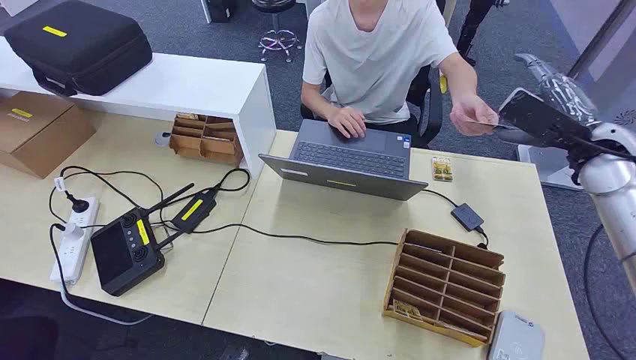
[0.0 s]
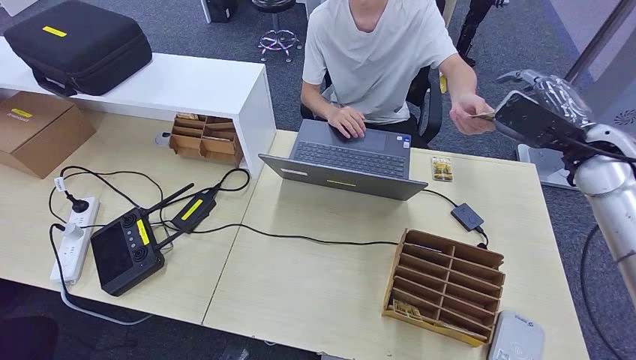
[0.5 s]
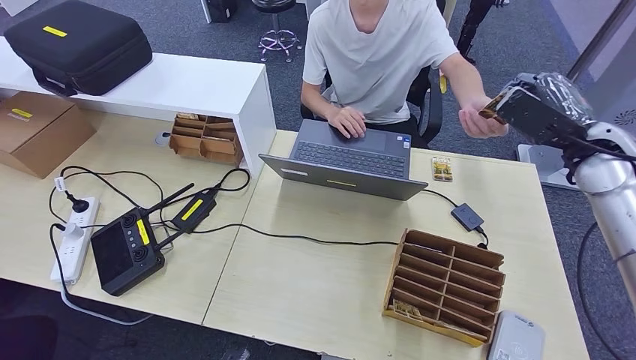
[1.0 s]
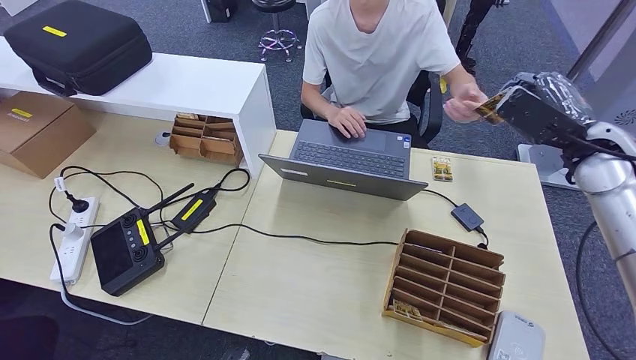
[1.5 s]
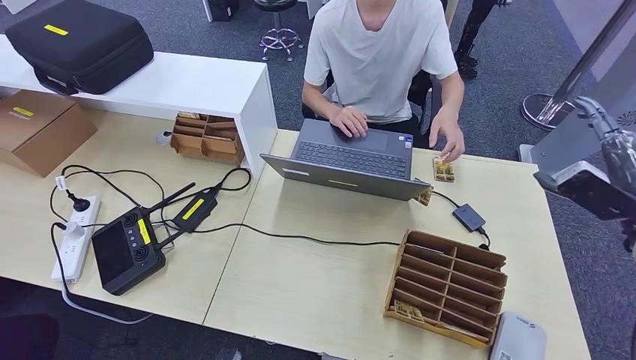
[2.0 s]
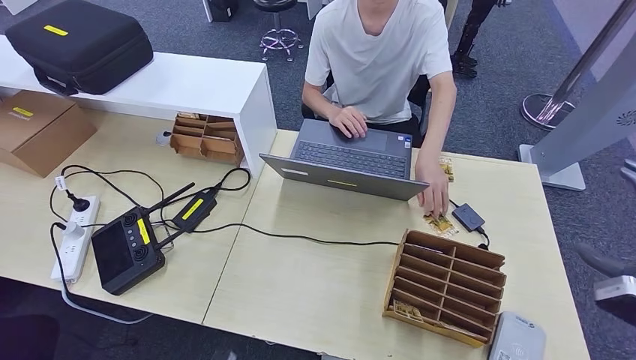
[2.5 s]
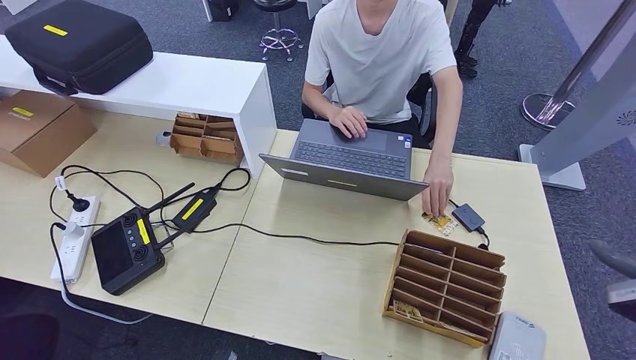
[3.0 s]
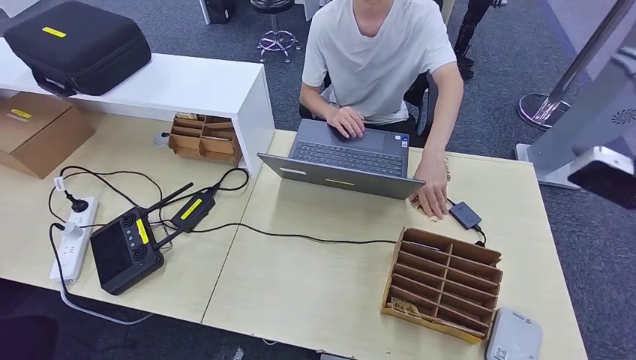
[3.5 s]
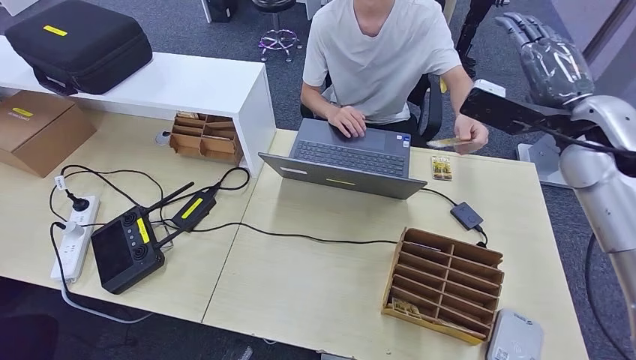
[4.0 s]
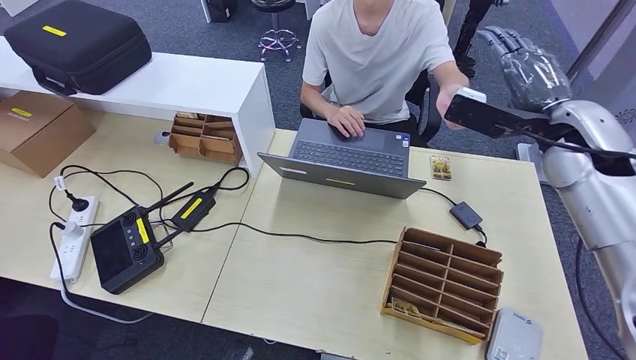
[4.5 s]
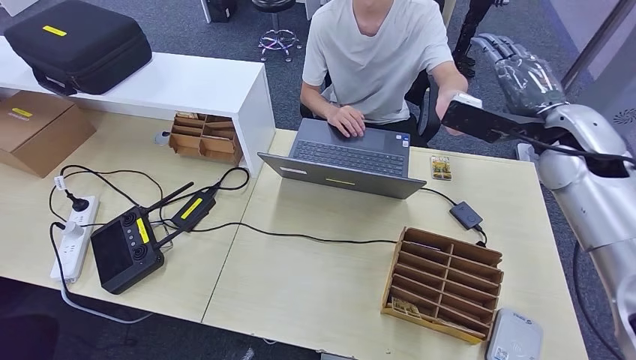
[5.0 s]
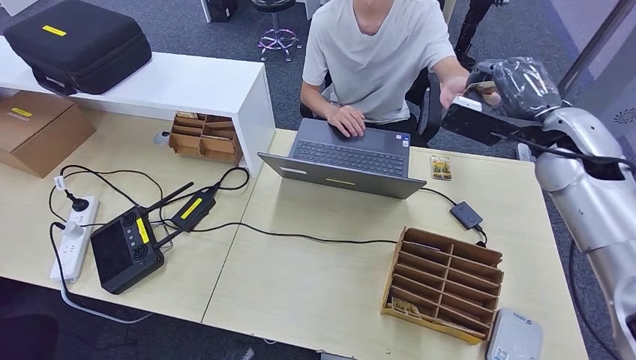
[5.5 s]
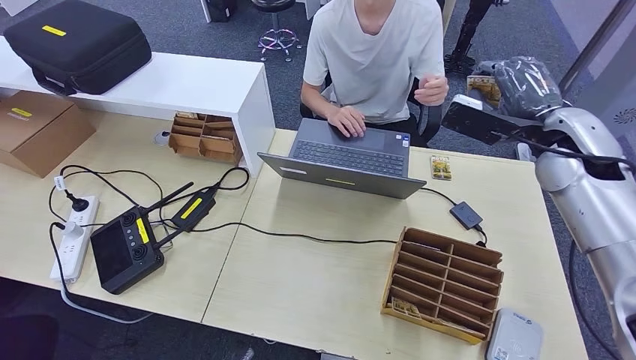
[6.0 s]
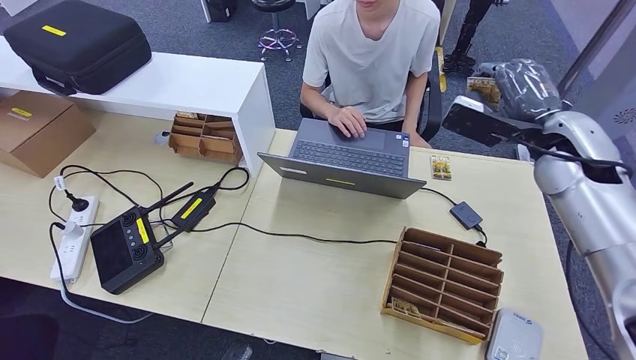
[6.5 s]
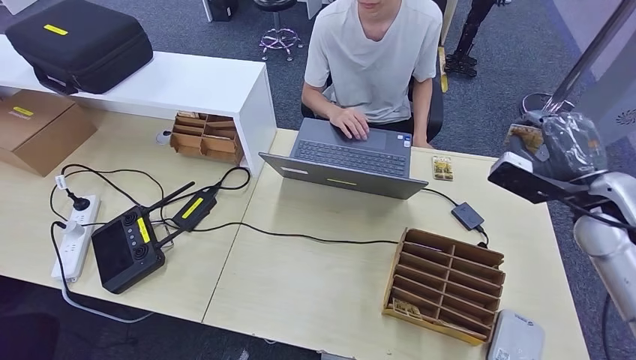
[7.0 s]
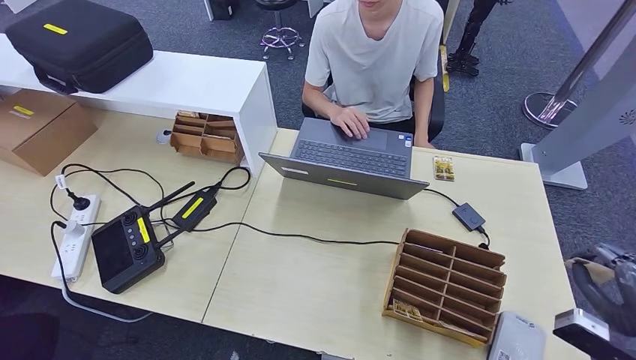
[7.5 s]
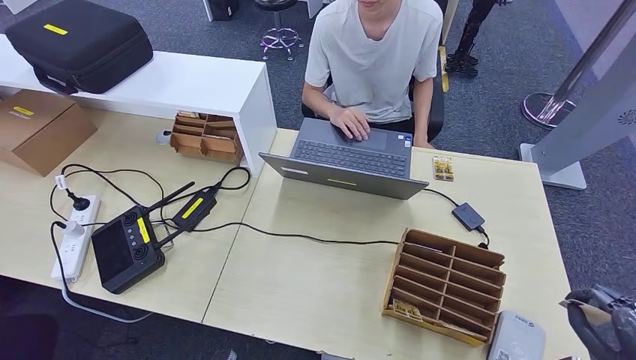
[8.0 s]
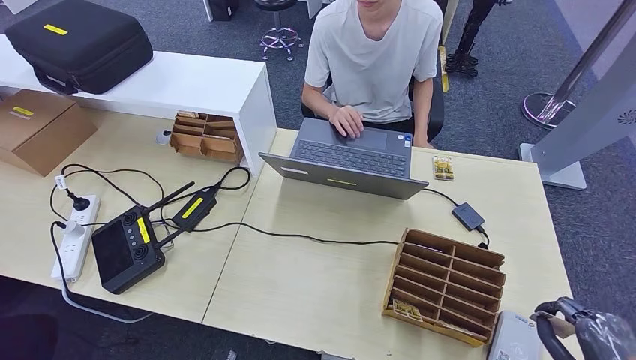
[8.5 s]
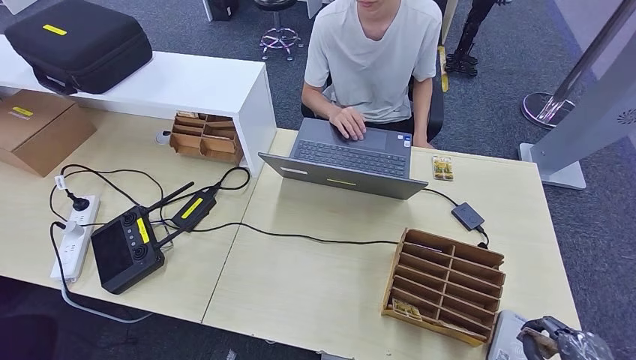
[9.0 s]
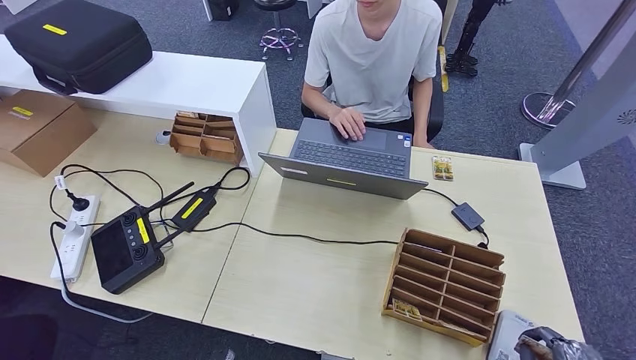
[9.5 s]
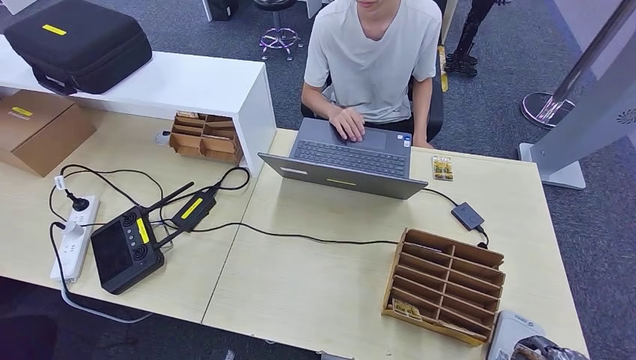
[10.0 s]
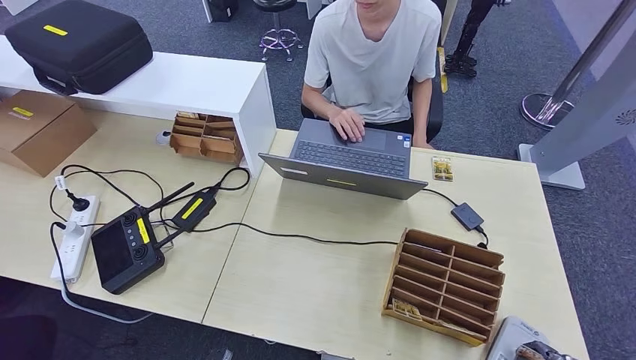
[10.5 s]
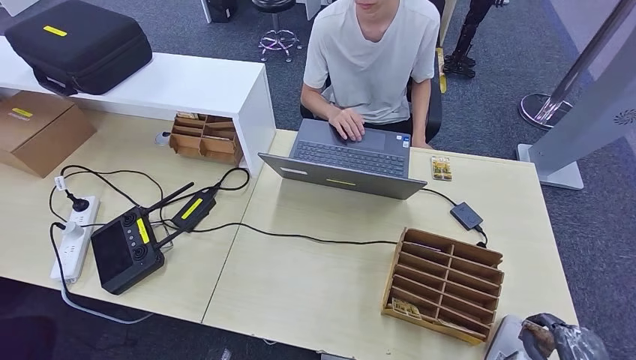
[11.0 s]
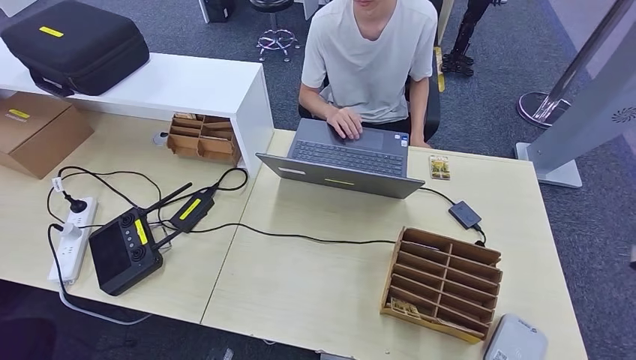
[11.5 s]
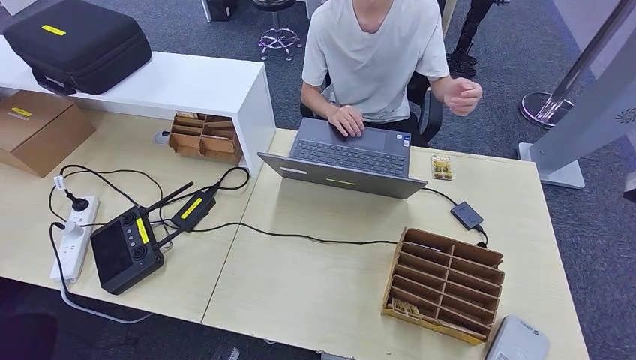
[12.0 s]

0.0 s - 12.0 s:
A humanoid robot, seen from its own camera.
Step, 0.0 s - 0.5 s: Take the ID card from the person's hand.
Step, 1.0 s - 2.5 s: Place the ID card on the card reader.
2.0 s - 4.0 s: The right hand moves to the left and upward, roughly 15 cm, and travels backward and back again, about 15 cm each way.
4.0 s - 6.0 s: The hands move only a little.
6.0 s - 8.0 s: The right hand heads backward, downward and to the right, covering approximately 40 cm.
8.0 s - 10.0 s: The right hand is displaced downward and backward by approximately 10 cm.
10.0 s - 12.0 s: The right hand shifts about 40 cm upward and forward.

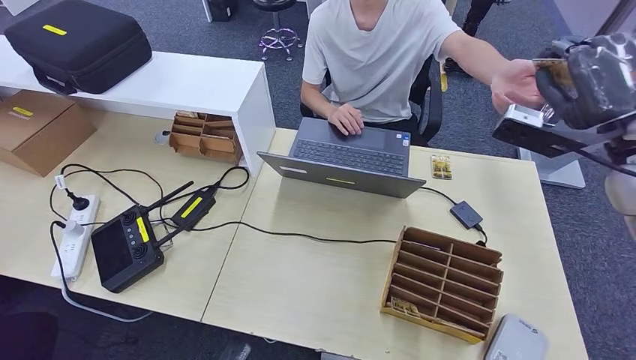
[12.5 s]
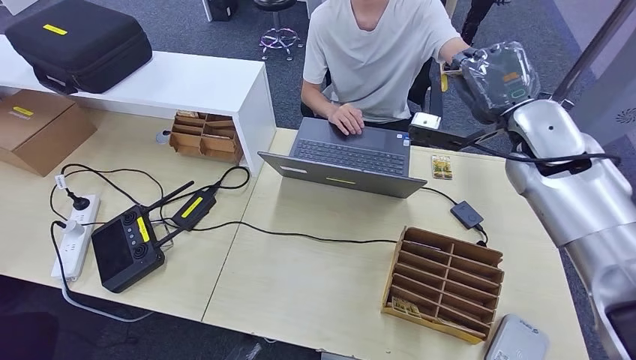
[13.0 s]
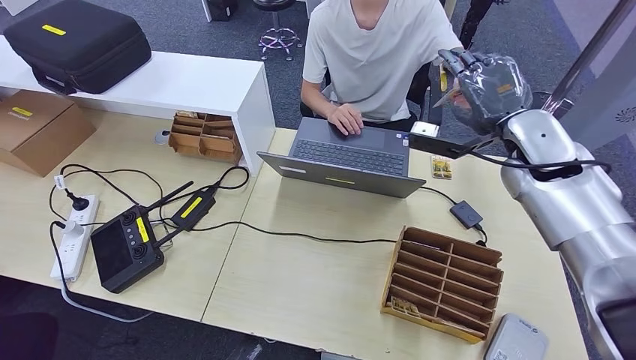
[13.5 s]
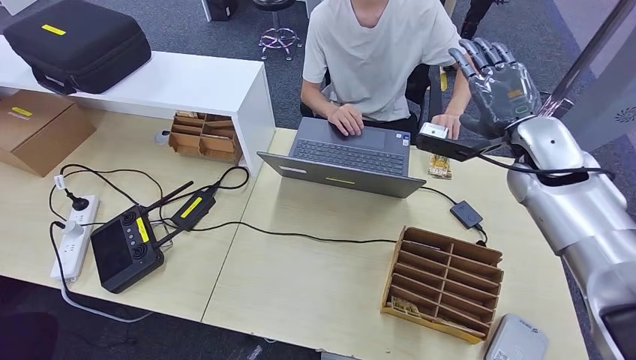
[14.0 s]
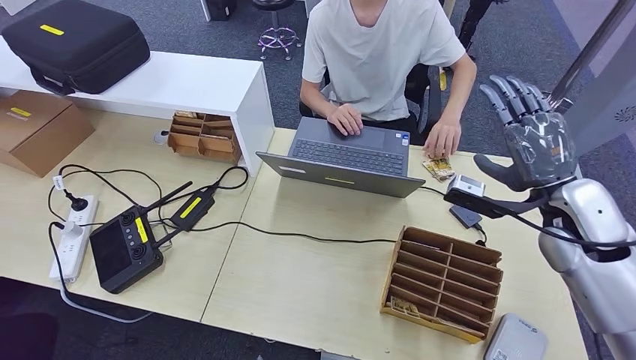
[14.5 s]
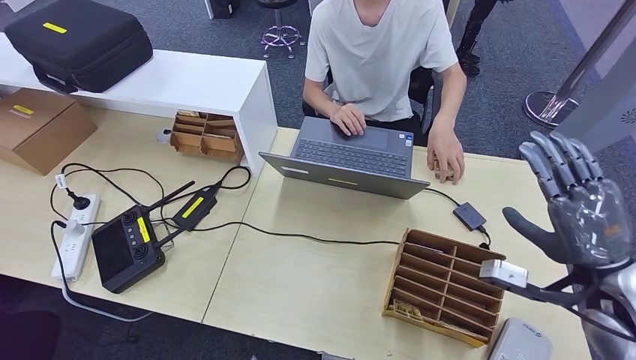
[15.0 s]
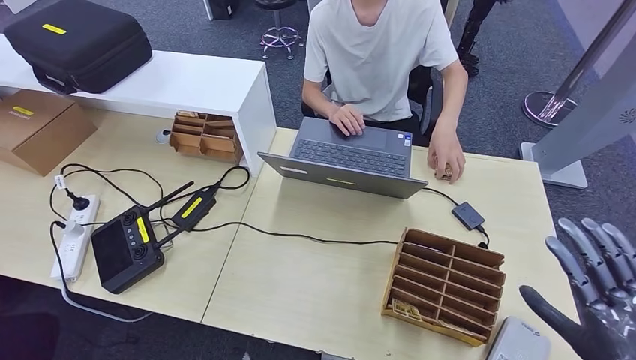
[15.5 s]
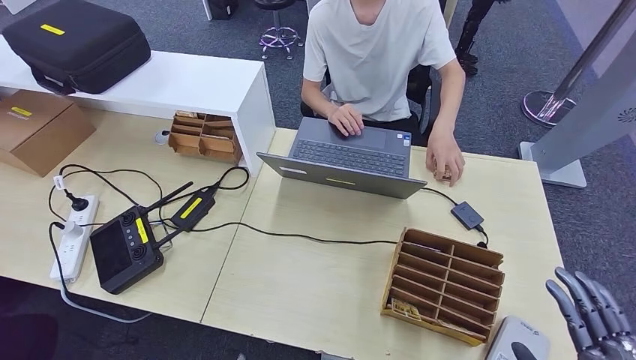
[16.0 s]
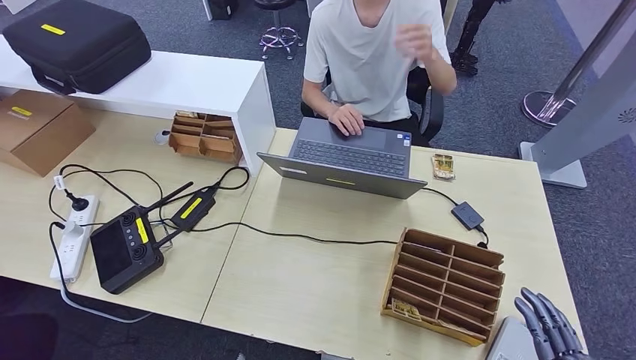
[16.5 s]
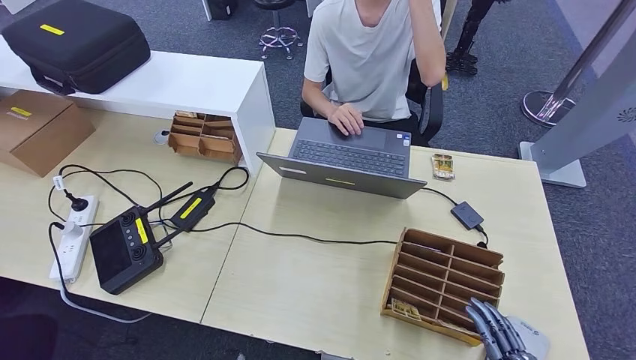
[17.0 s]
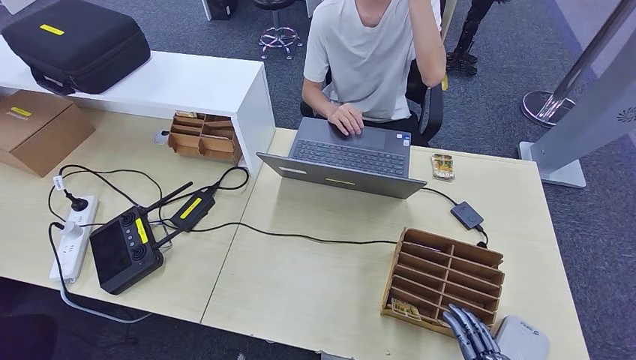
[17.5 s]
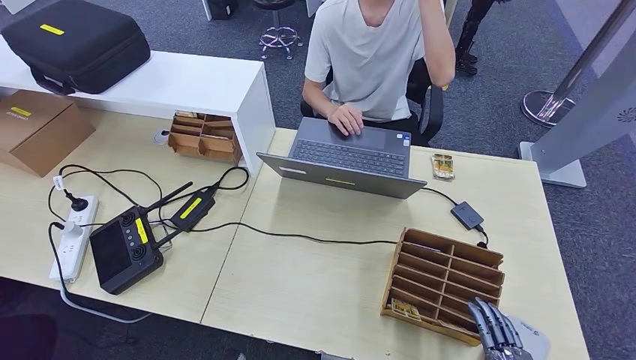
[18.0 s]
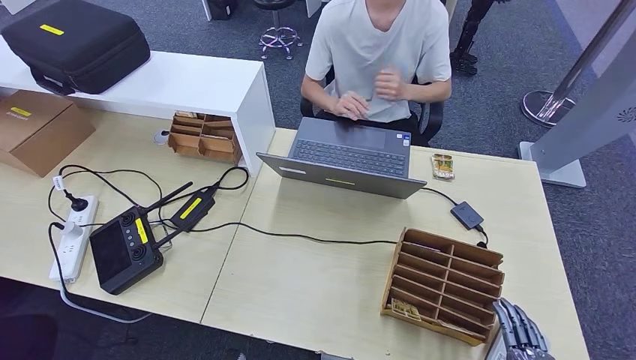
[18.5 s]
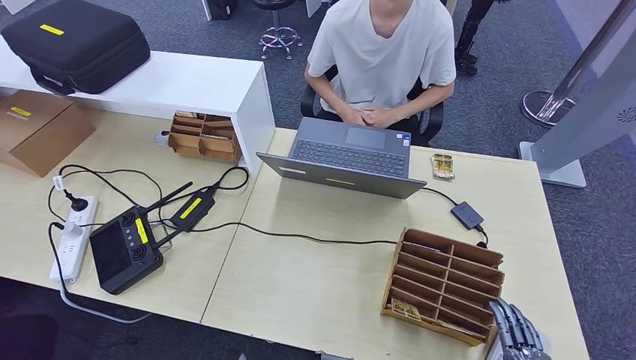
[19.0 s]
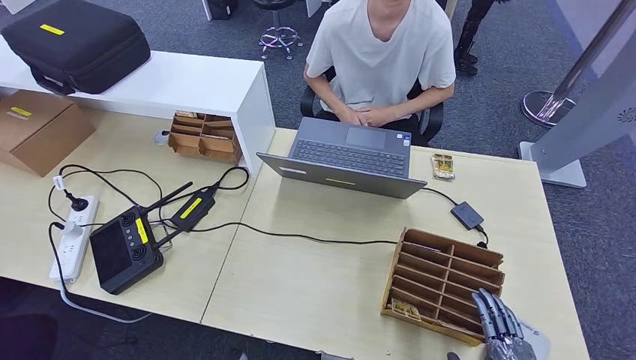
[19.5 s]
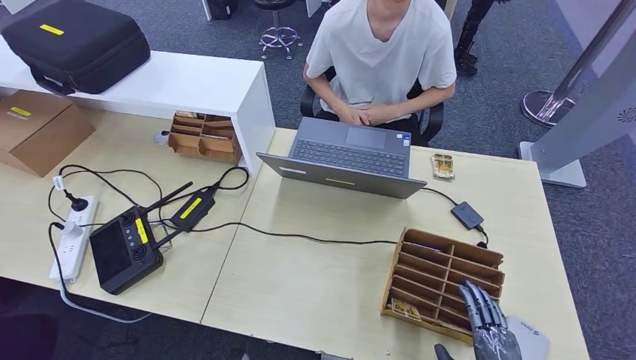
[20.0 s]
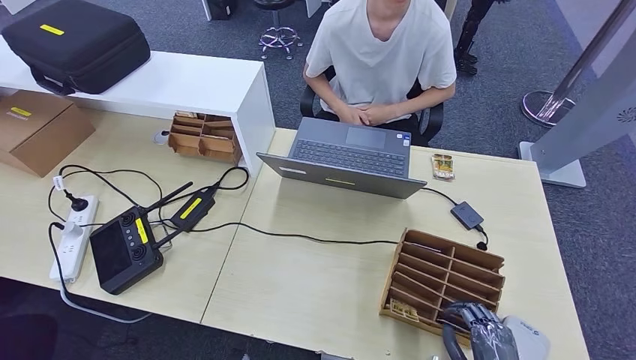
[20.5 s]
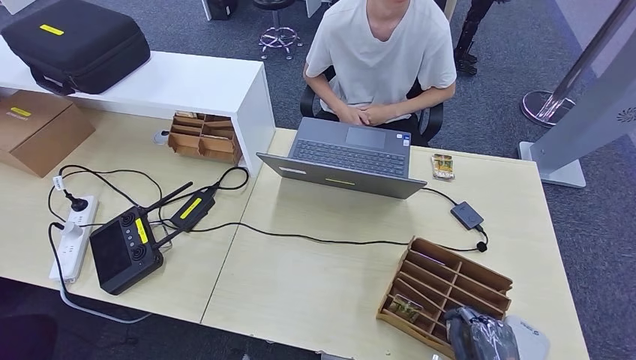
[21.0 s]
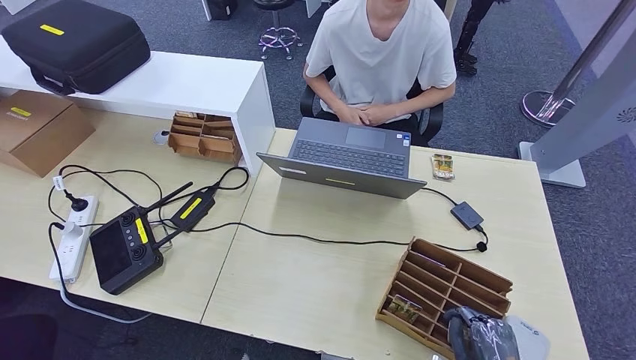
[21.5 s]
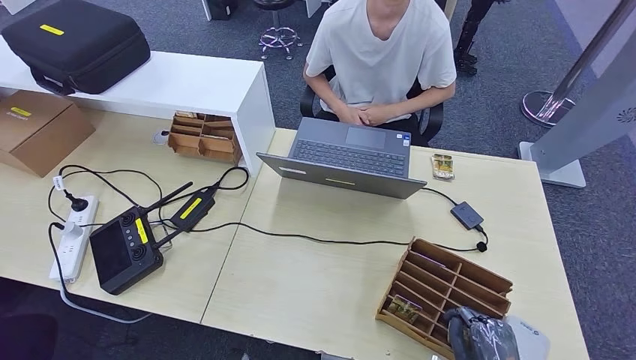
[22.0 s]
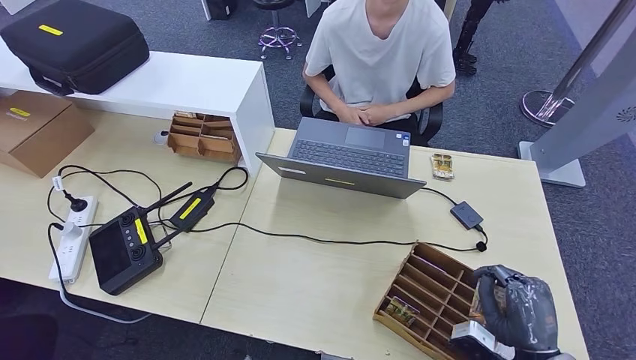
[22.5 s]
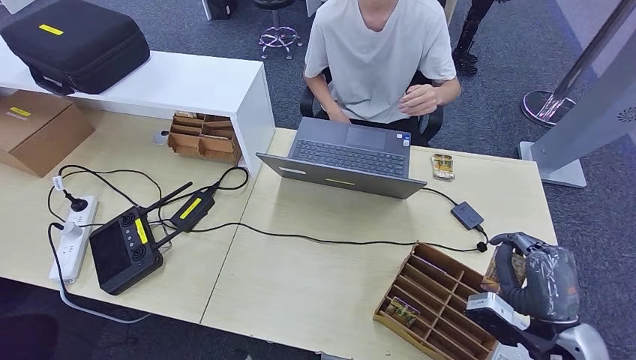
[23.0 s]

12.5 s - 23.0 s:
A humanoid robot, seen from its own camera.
Step, 12.5 s - 15.5 s: Hand the ID card to the person.
12.5 s - 14.5 s: The right hand shifts approximately 10 cm downward.
14.5 s - 16.5 s: The right hand moves backward, about 30 cm.
16.5 s - 19.0 s: The right hand moves downward, approximately 10 cm.
19.0 s - 21.0 s: The right hand ends up some 5 cm from where it was.
21.0 s - 23.0 s: The right hand shifts roughly 15 cm forward and upward.
